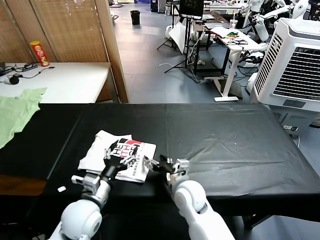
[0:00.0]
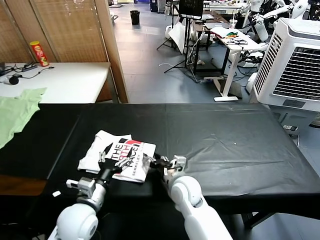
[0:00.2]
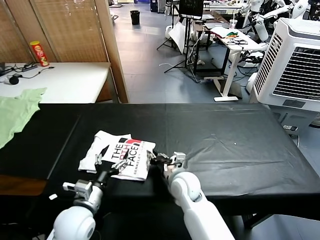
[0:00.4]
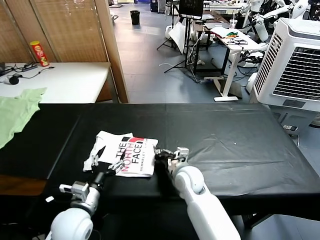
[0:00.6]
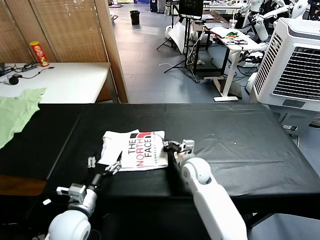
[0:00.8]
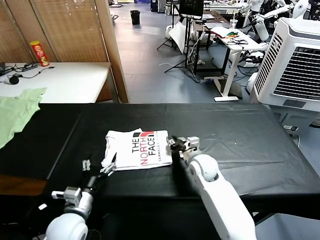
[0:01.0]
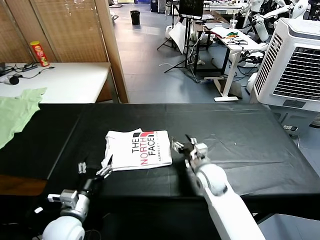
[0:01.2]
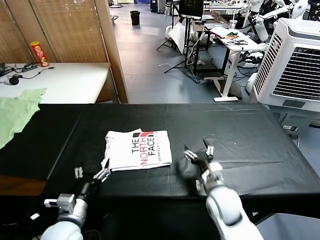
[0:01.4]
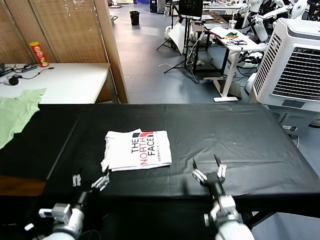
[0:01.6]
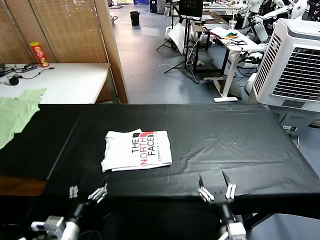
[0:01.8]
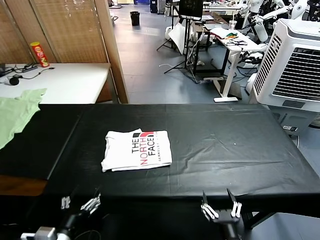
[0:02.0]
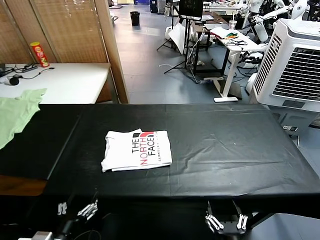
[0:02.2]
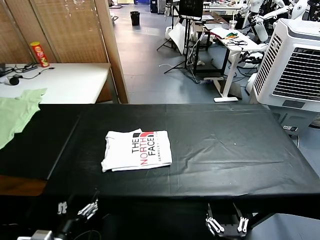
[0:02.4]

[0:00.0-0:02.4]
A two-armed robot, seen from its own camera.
Task of the whole recording: fold and organize the clothes.
Step, 0:00.0 to 0:01.0: Drag the clothes to the center of the table.
0:00.0 to 0:01.2: The left gripper shifts about 5 cm to the left, while the right gripper moves to the right and forward, about 10 cm, and closes, then opens again.
0:01.2 to 0:02.4: The left gripper shifts approximately 10 cm backward; the right gripper moves backward, roughly 35 cm.
